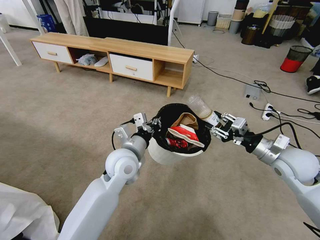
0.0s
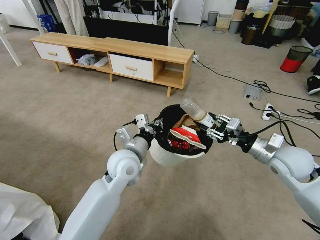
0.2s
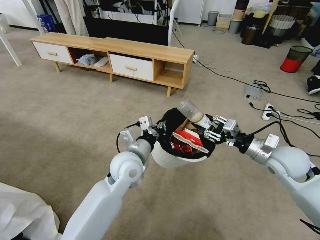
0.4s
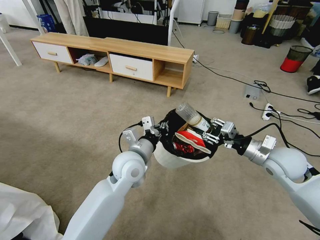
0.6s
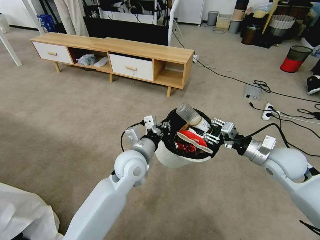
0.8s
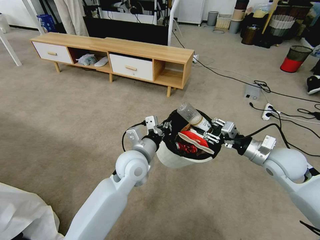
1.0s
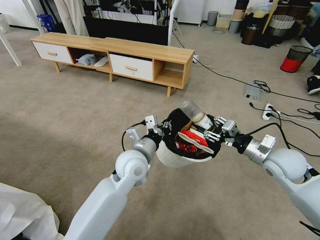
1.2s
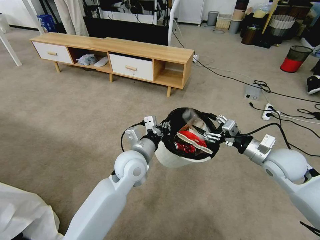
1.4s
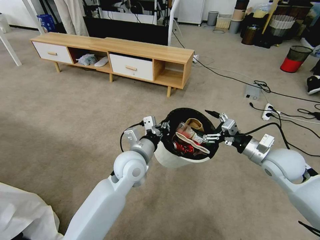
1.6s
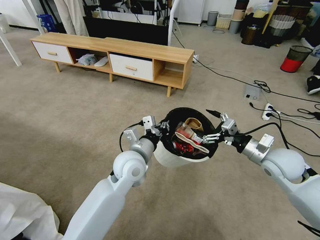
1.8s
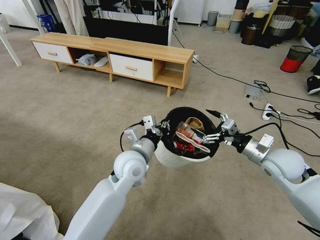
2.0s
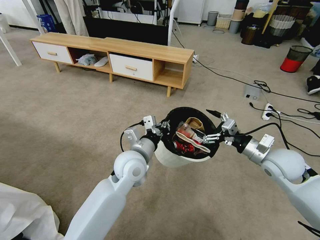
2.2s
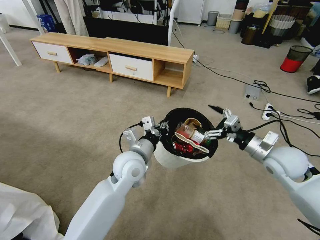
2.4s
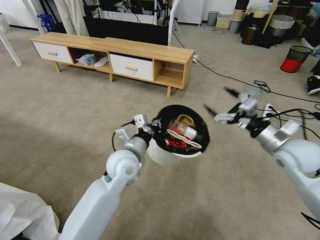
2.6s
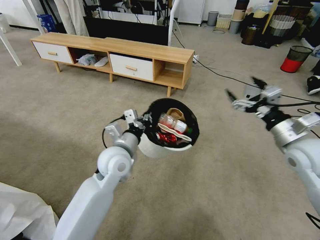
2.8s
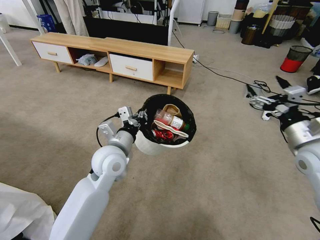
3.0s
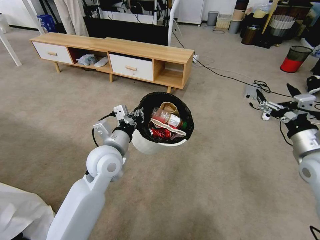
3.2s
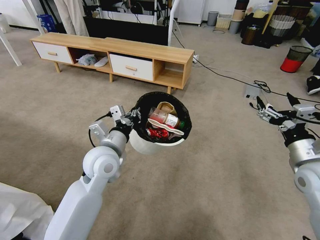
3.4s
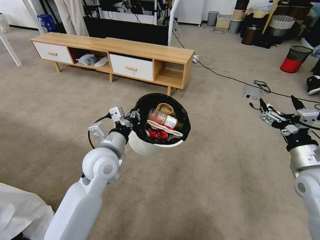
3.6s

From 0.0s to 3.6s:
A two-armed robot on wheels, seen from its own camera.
Task of the whole recording: Pick up the trash bin and place the garbage on the floor into it.
From 0.0s to 1.8s: The right gripper opens up.
From 1.8s to 3.6s: The left gripper moves to the left, about 10 cm; the right gripper heads backward, covering approximately 10 cm.

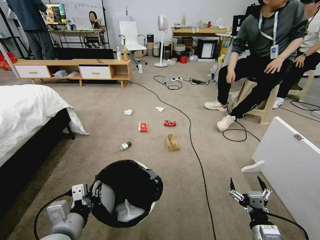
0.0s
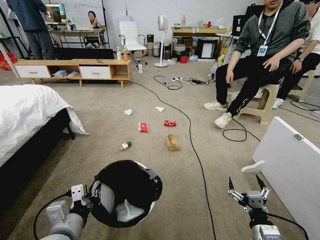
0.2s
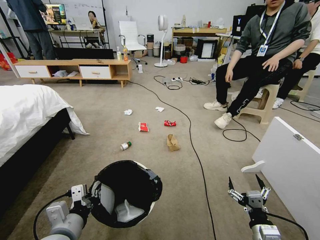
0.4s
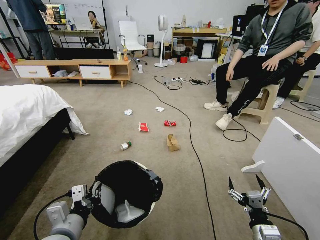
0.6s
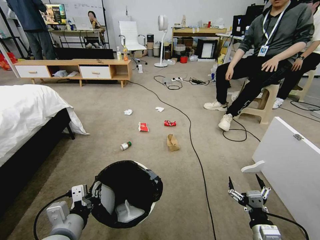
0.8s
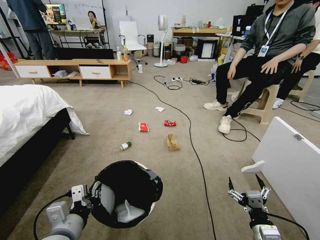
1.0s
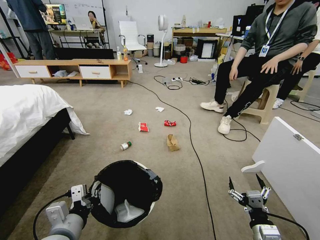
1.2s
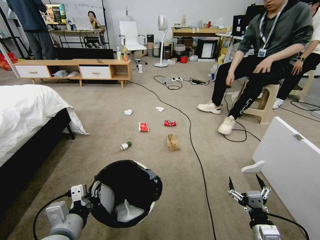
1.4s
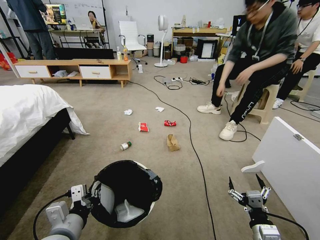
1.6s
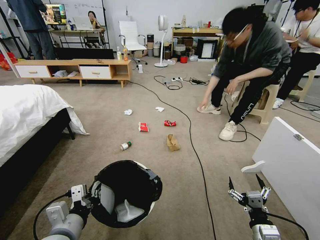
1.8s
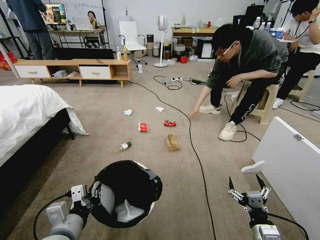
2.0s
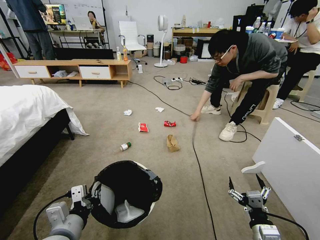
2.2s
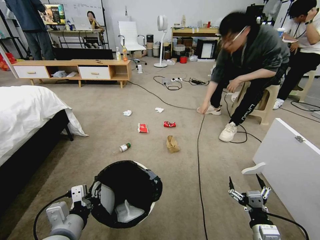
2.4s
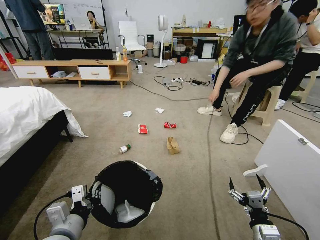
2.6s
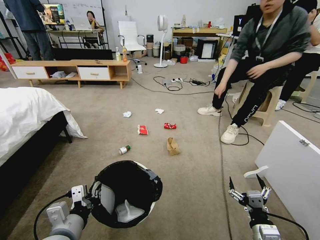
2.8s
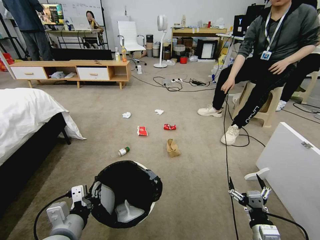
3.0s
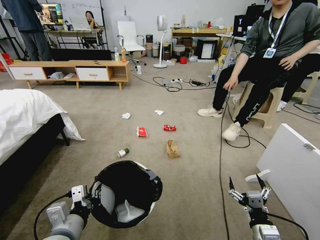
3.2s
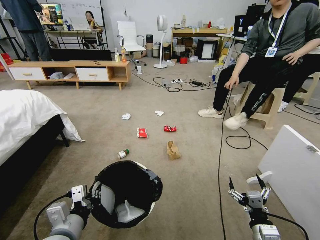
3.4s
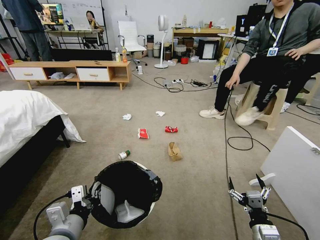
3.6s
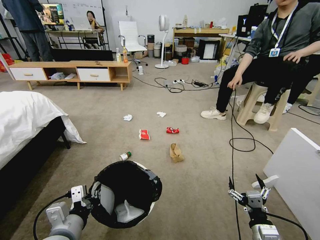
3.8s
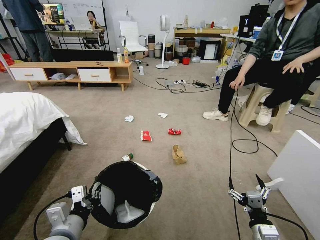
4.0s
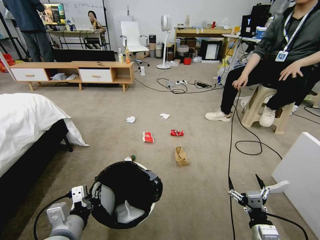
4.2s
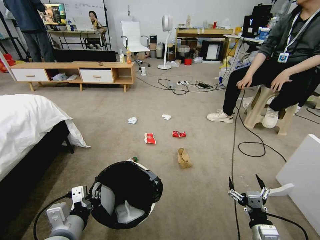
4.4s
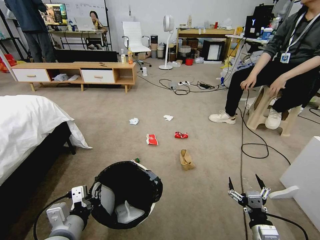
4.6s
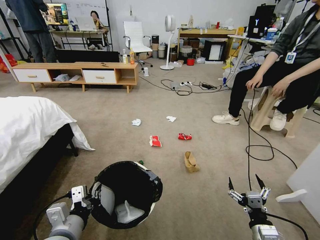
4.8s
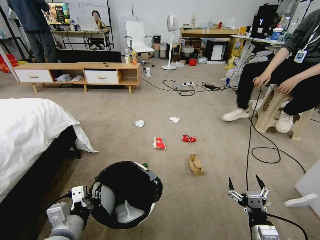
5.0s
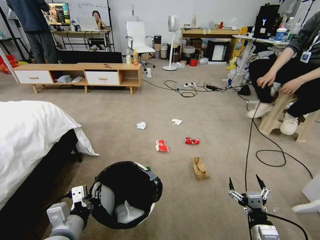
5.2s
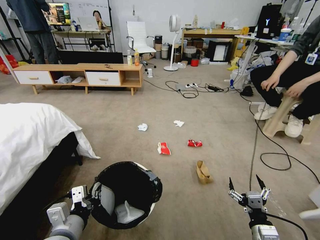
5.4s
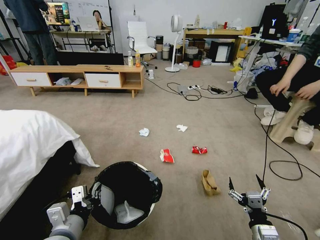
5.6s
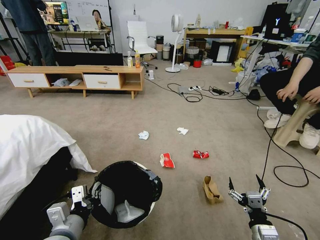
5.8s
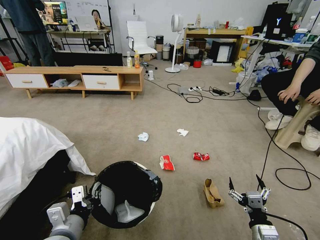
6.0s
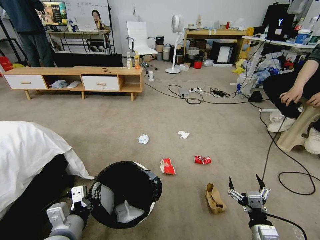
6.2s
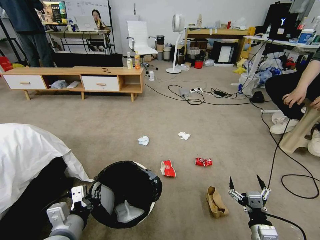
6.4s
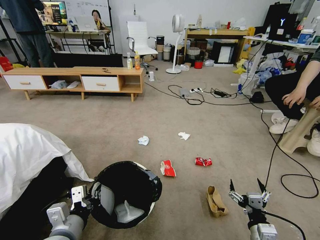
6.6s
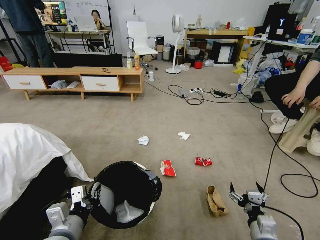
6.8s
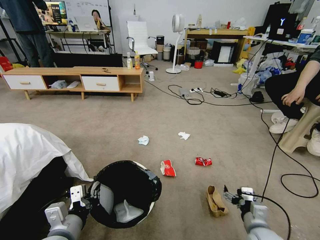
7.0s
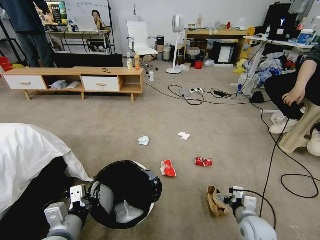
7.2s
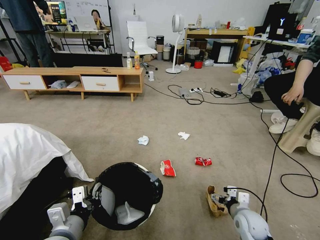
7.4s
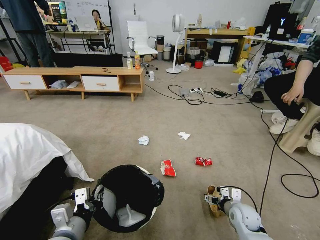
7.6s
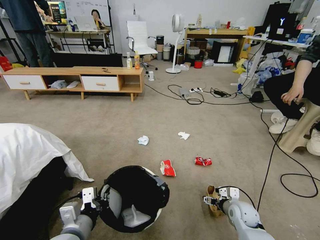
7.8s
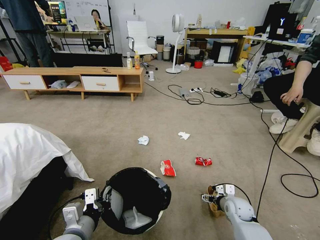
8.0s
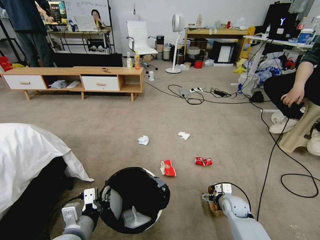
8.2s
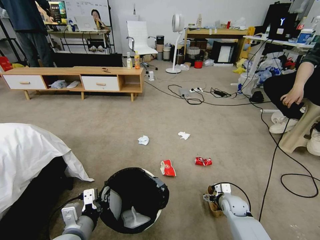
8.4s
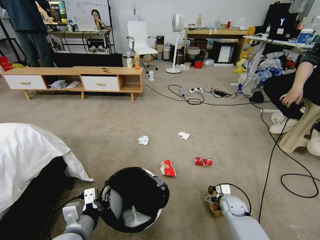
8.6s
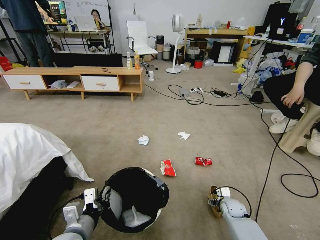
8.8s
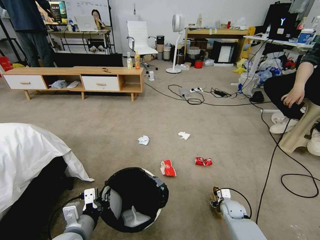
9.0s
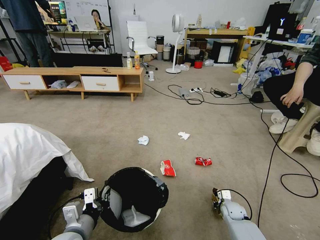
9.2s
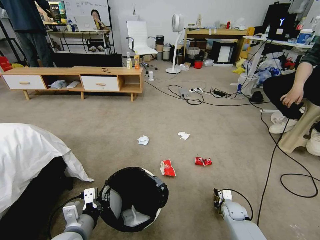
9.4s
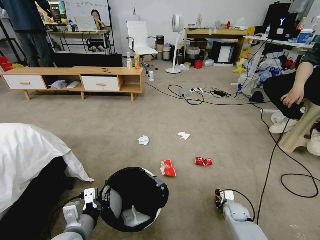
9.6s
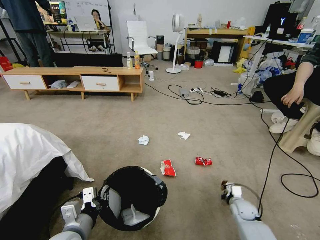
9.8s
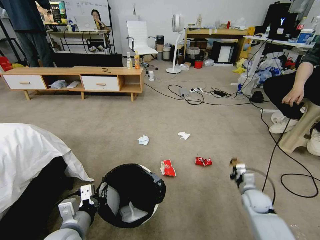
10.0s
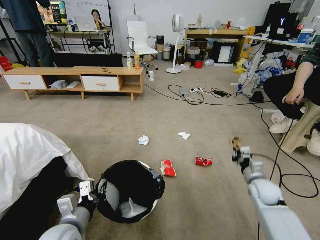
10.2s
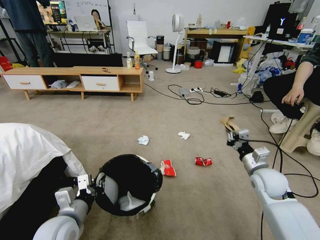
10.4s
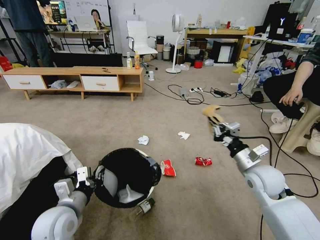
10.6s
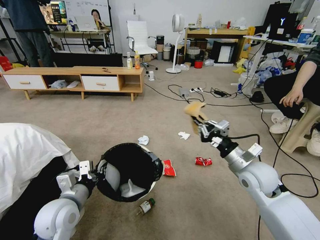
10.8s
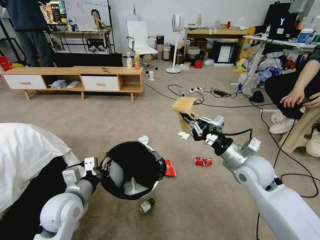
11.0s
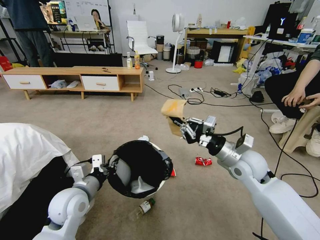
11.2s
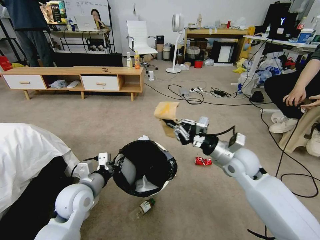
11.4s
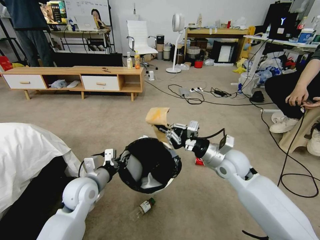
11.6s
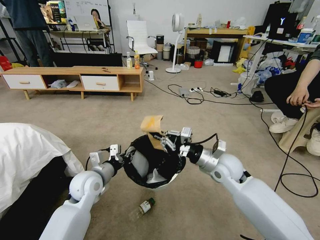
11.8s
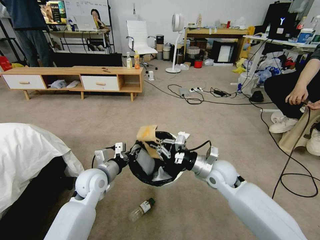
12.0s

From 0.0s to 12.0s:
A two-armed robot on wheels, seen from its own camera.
Task of the whole recording: Pick up the trash bin and place the garbage on the floor into it.
From 6.0s to 7.6s: The right gripper heads forward, covering roughly 15 cm.
From 7.6s to 9.0s: The right gripper heads downward and forward, covering roughly 10 cm, and closes its fingers.
From 9.0s to 10.4s: The right gripper is displaced upward by approximately 25 cm, and closes.
From 10.4s to 12.0s: The right gripper heads to the left, covering about 15 cm; the left gripper shifts approximately 15 cm forward.

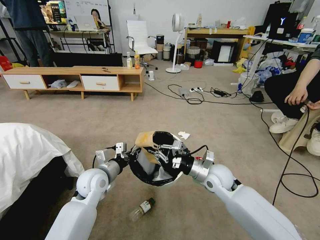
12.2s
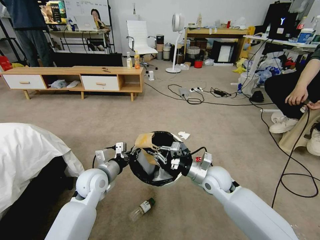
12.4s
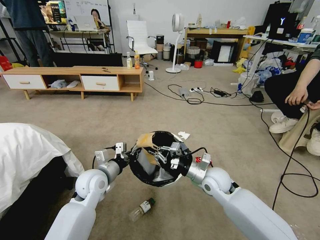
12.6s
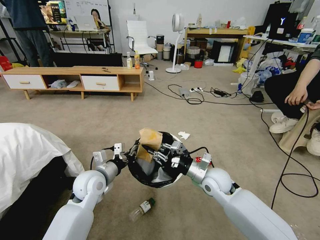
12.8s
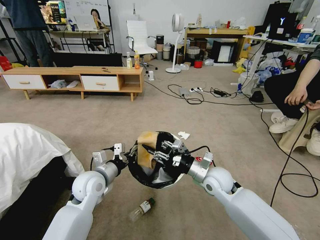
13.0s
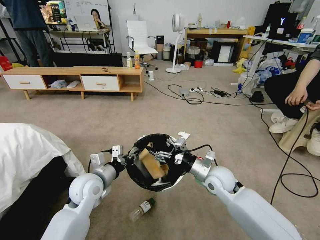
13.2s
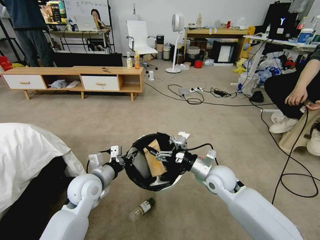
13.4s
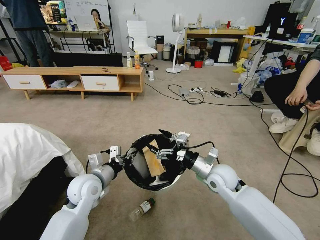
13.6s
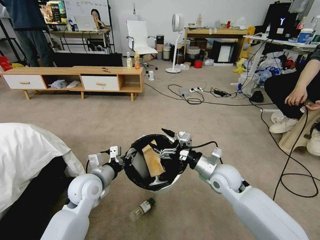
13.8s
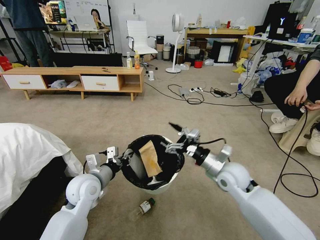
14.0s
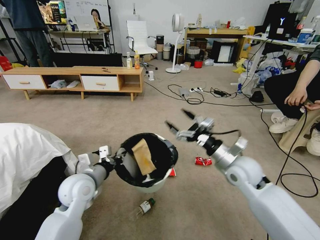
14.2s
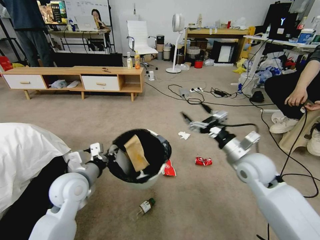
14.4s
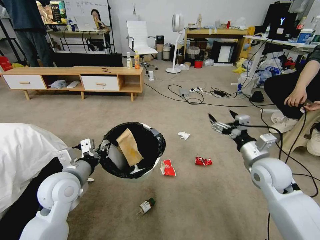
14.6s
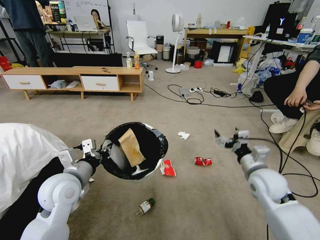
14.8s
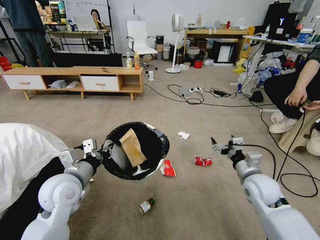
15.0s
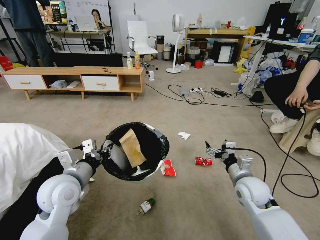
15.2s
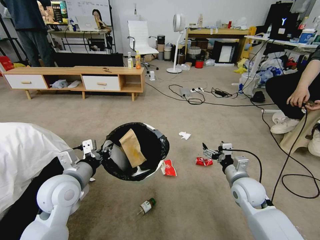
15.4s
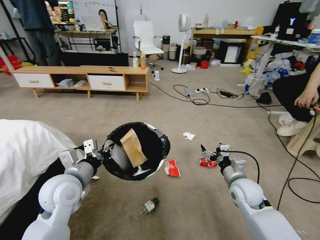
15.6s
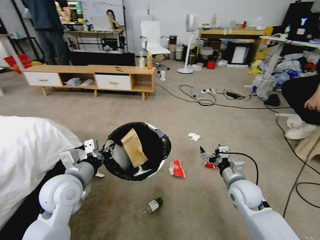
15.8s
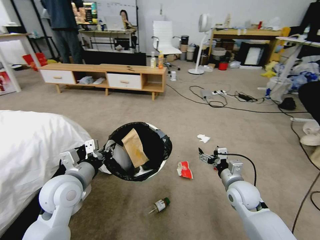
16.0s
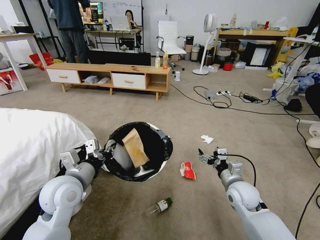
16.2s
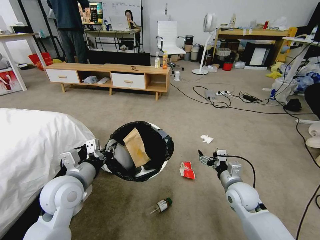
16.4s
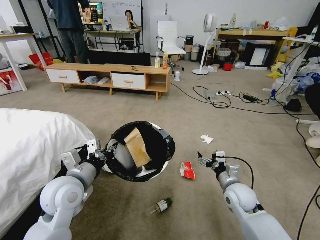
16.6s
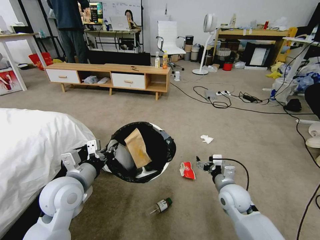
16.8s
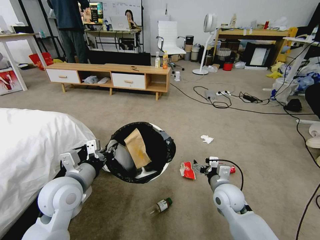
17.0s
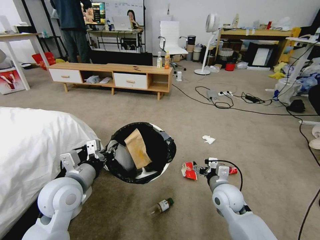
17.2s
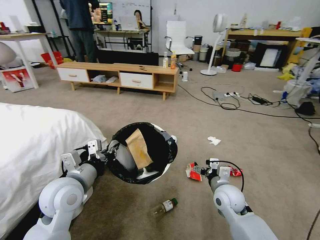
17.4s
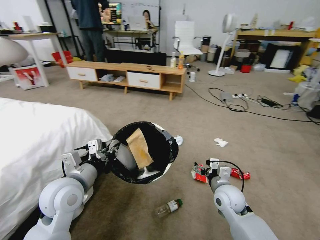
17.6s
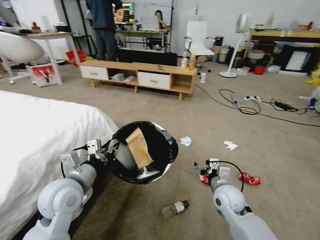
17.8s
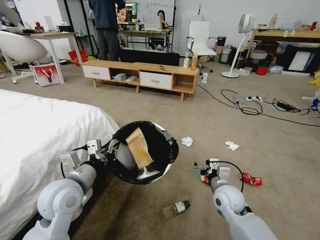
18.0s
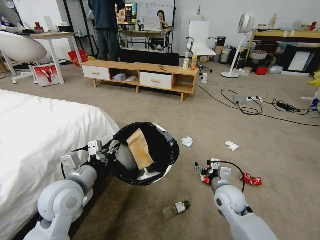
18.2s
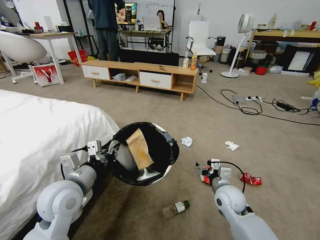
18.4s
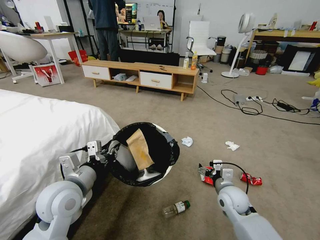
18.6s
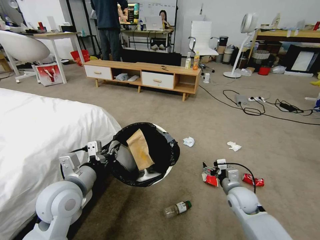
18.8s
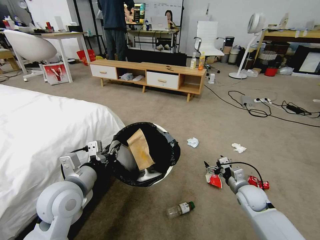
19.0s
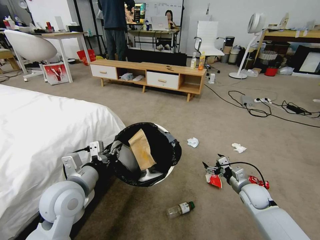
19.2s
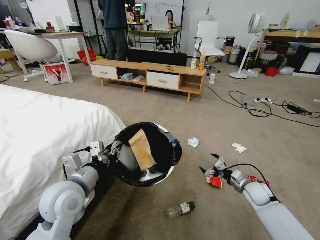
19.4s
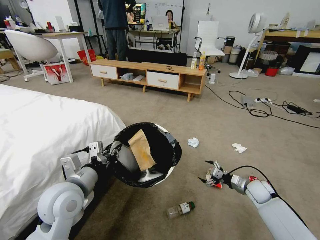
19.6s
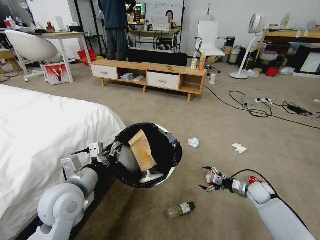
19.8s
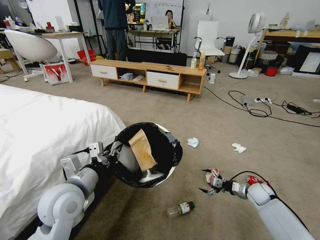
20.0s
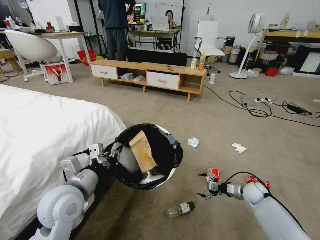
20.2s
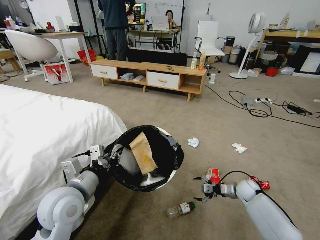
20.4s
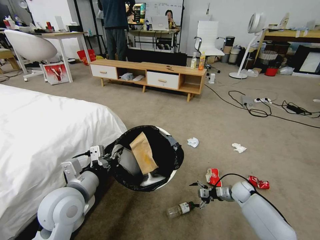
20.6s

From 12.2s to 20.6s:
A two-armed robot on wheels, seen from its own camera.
Task of the whole recording: Pick up the trash bin and place the garbage on the floor into it.
From 12.2s to 13.6s: The right gripper opens its fingers.
From 13.6s to 15.0s: The right gripper moves to the right, some 10 cm. The left gripper moves upward, roughly 5 cm.
From 15.0s to 16.4s: The right gripper travels downward by some 5 cm.
From 16.4s to 17.8s: The right gripper shifts about 5 cm to the left.
From 17.8s to 19.2s: The right gripper shifts roughly 15 cm to the right.
From 19.2s to 20.6s: The right gripper travels downward and forward by some 10 cm.
